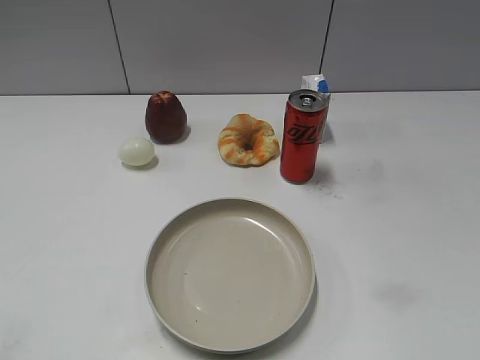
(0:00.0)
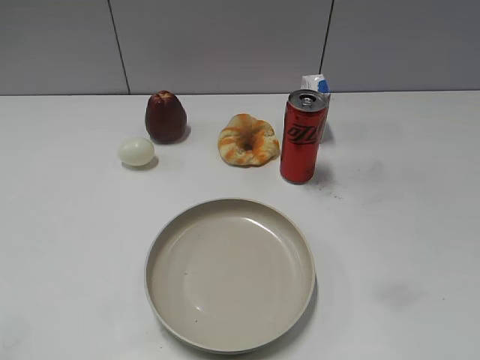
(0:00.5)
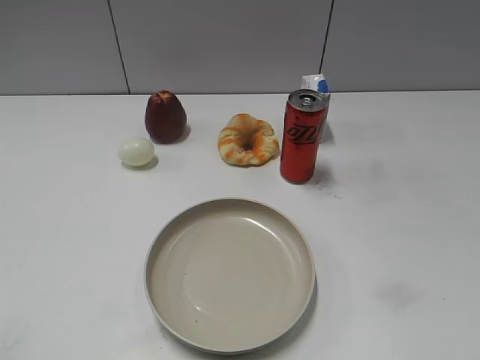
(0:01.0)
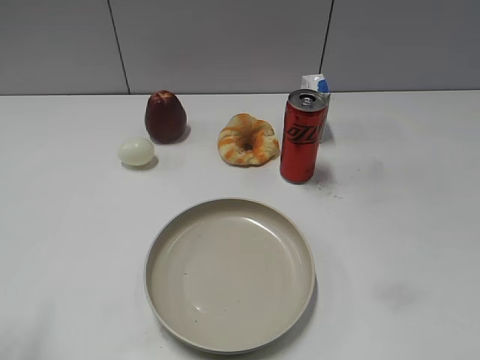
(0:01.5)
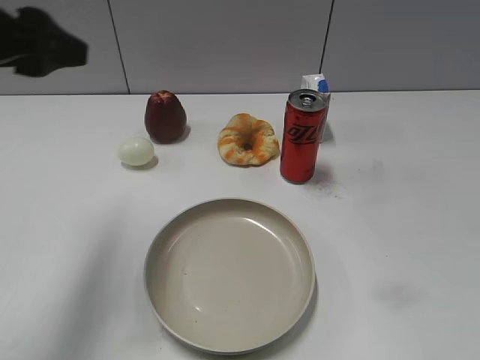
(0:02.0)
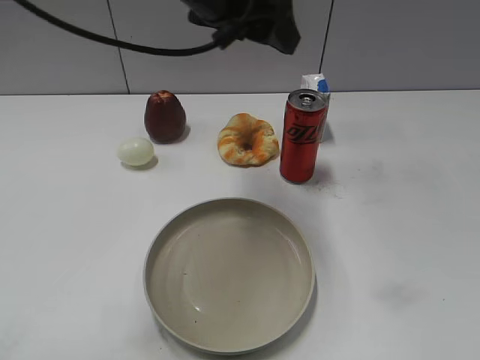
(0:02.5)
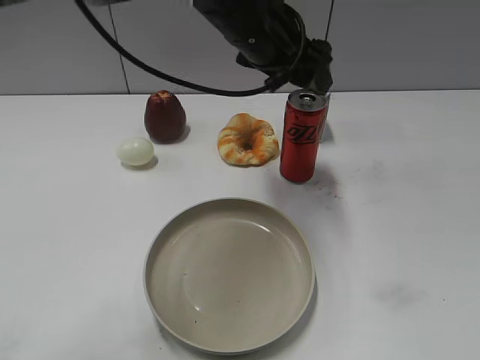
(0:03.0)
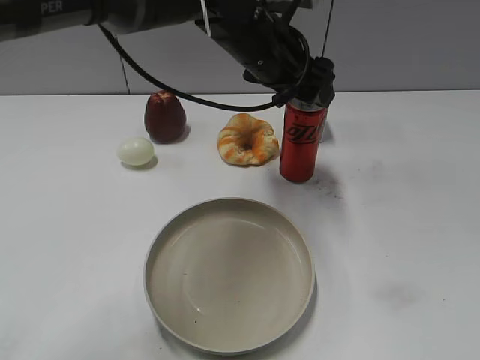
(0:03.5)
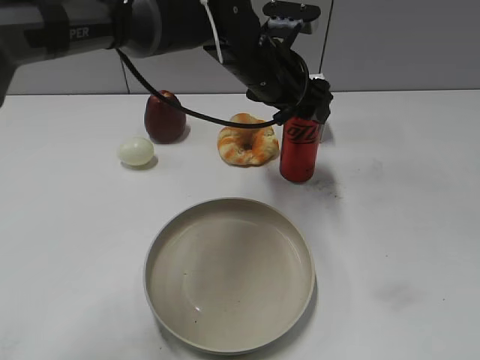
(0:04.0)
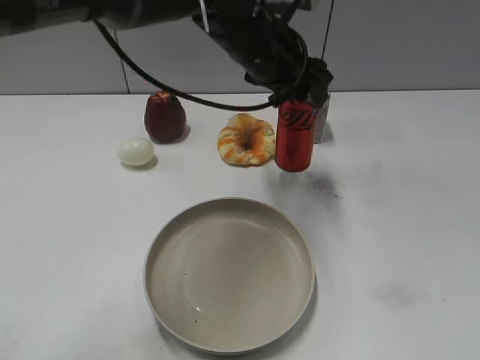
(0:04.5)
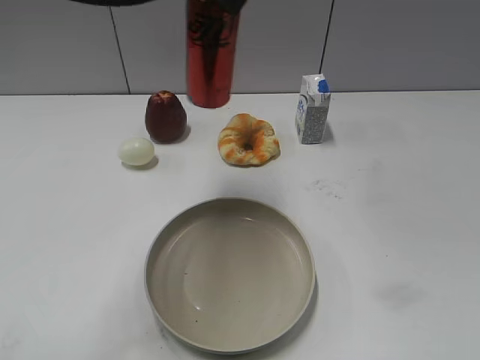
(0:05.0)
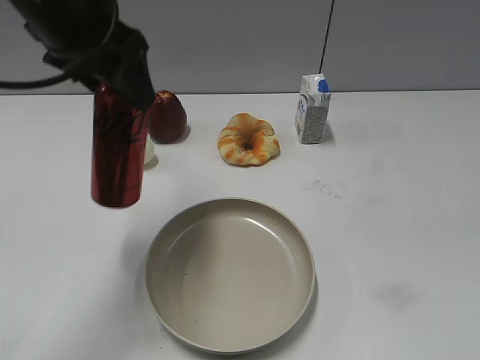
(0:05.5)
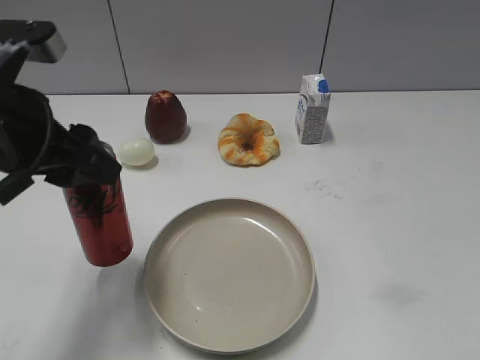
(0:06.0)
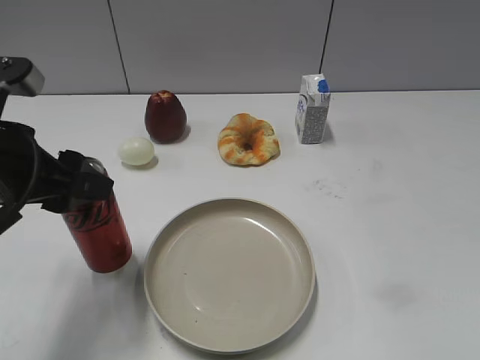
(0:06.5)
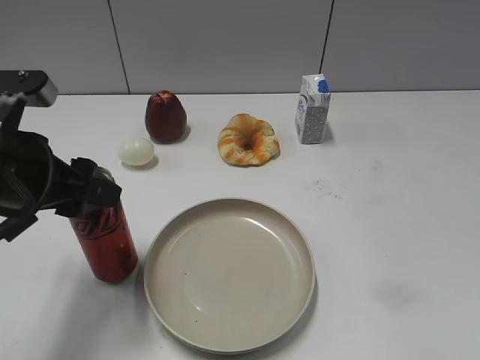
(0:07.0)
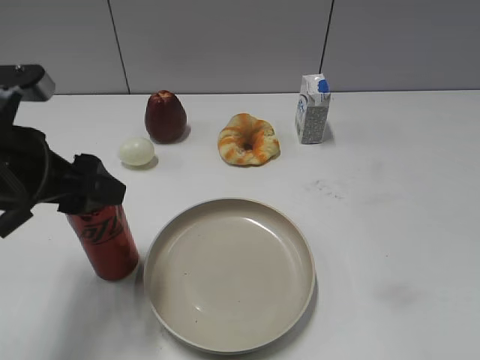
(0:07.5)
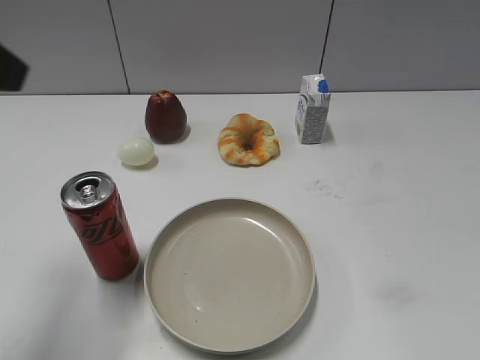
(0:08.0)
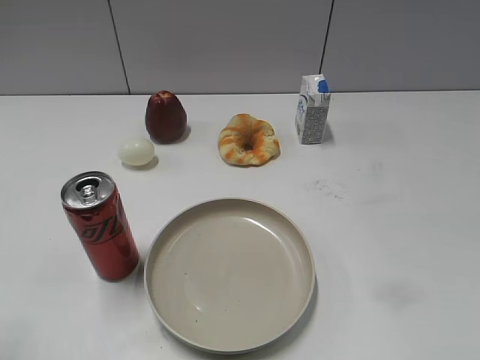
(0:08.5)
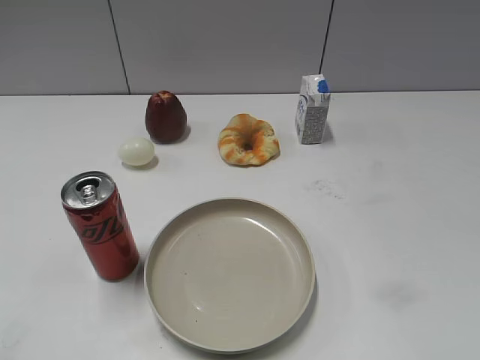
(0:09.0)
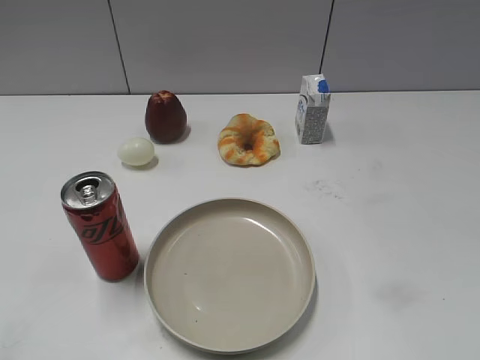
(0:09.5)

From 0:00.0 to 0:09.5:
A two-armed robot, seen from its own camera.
Step, from 0:01.0 to 0:04.0: Grasp the cola with left gripper.
Step, from 0:04.5 to 0:07.5: Place the cola on the table with left gripper.
From 0:02.0 to 0:04.0: The left gripper travels to the right, forward and downward by roughly 30 cm.
From 0:04.0 to 0:05.5: The left gripper is displaced to the left and upward by about 20 cm, and closes up.
From 0:05.5 to 0:07.5: The left gripper shifts approximately 15 cm downward, backward and to the left, and opens up.
From 0:07.5 to 0:09.5: The left gripper travels backward and to the left by roughly 25 cm, and closes.

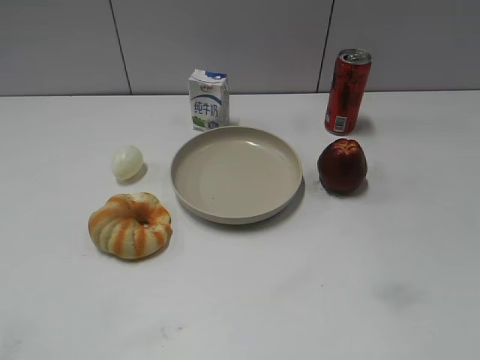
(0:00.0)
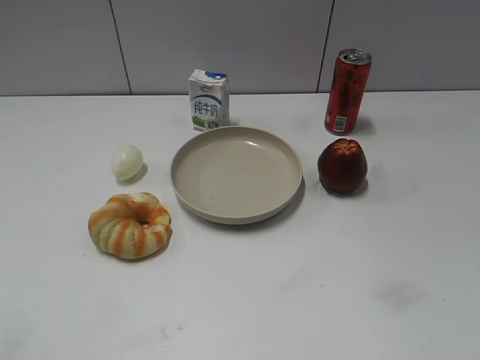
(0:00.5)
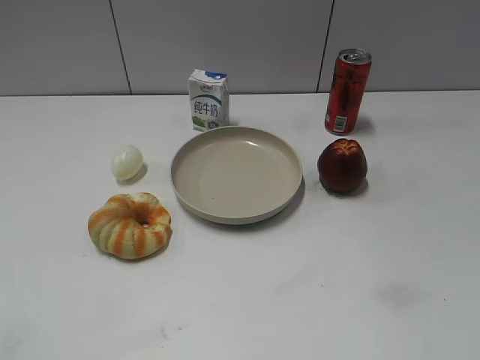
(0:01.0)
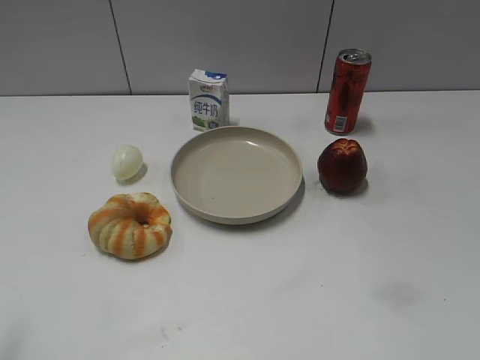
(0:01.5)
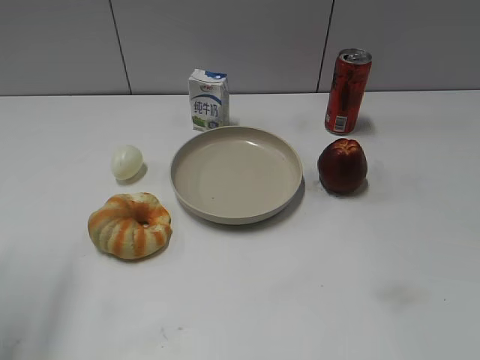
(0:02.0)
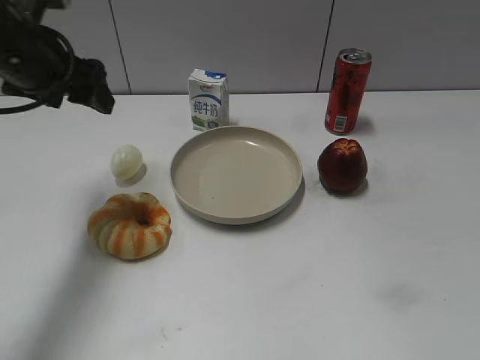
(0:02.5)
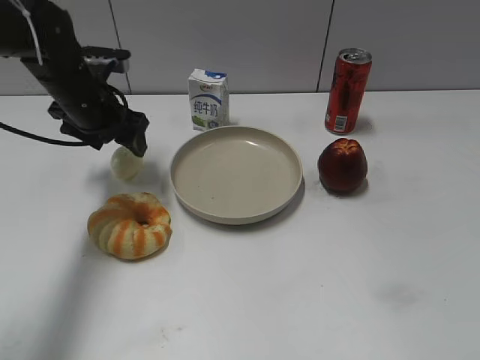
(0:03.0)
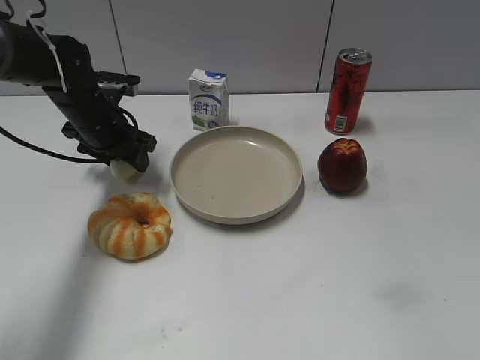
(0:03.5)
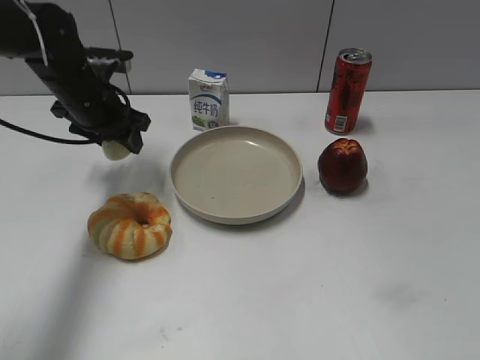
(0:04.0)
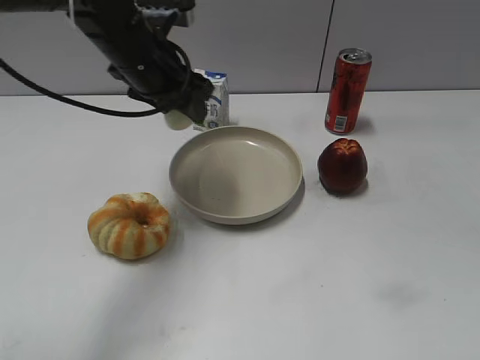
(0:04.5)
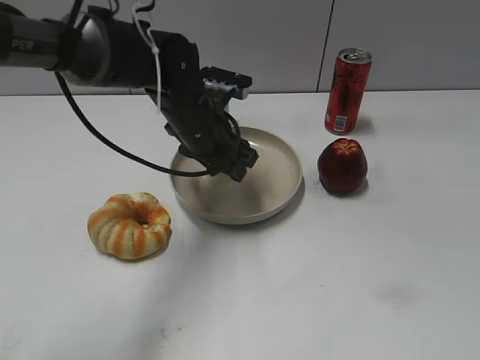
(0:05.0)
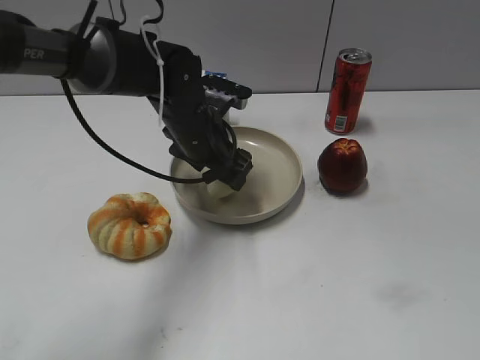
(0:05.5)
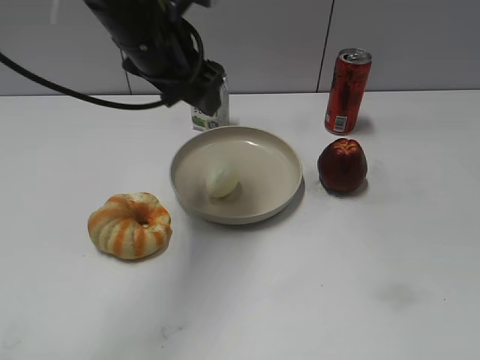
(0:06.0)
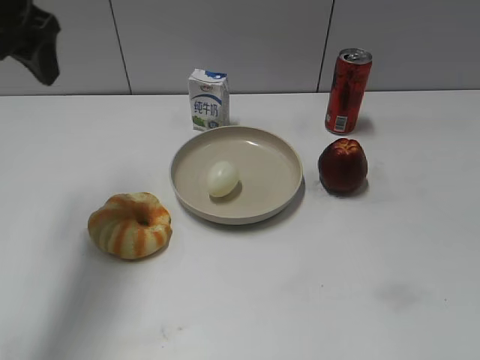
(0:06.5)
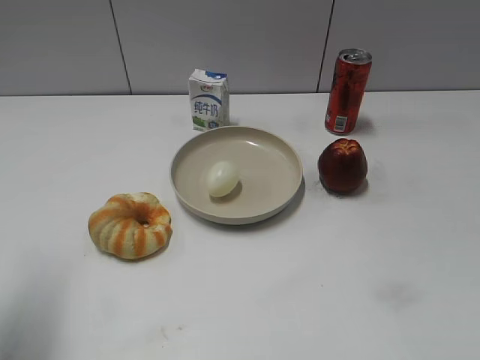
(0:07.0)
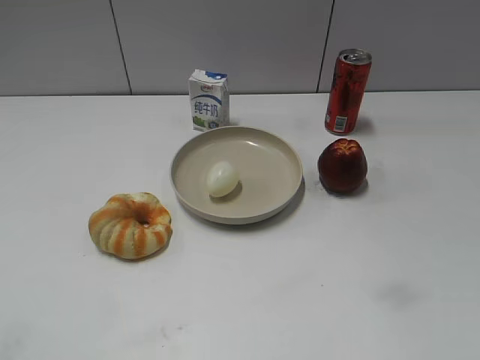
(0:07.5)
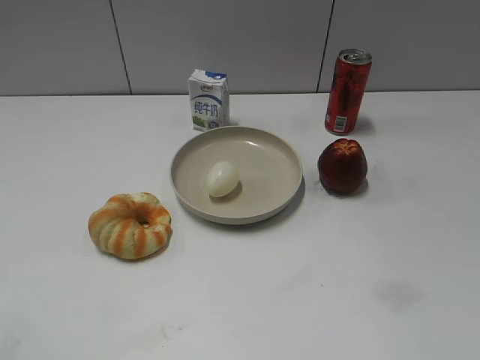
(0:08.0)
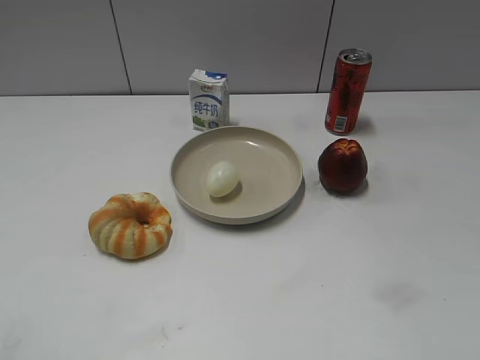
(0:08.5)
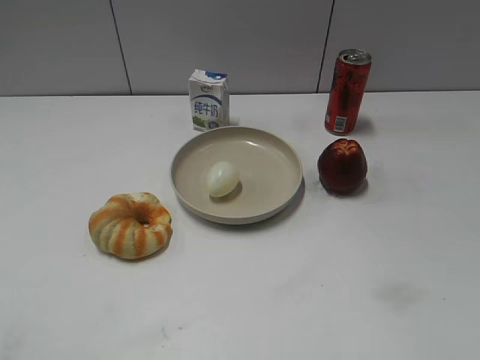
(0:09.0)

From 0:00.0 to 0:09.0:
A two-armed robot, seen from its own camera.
Step, from 0:01.0 to 0:03.5: Grasp the egg with left gripper.
Step, from 0:04.0 to 0:05.5: Place the egg on the plate with left gripper.
From 0:02.0 to 0:04.5: The left gripper heads to the right and forward, covering about 30 cm, and closes its fingers.
From 0:04.5 to 0:07.0: The left gripper heads backward and to the left, covering approximately 25 cm, and opens up.
From 0:07.0 to 0:09.0: The left gripper travels backward by roughly 20 cm, and closes up.
